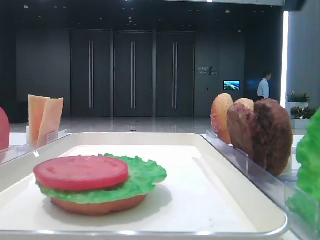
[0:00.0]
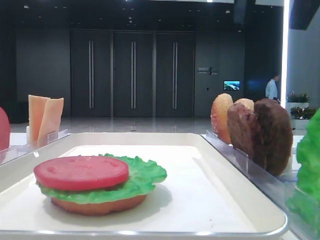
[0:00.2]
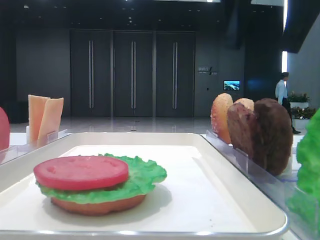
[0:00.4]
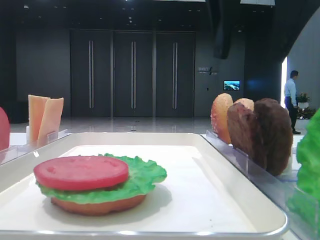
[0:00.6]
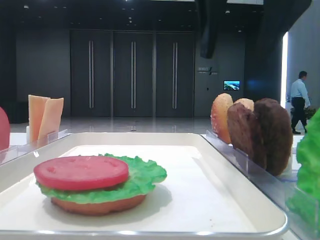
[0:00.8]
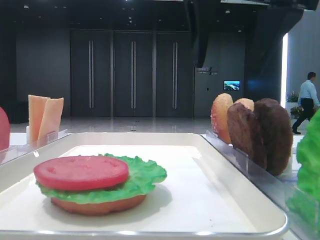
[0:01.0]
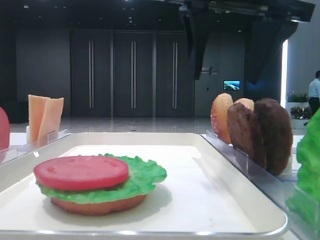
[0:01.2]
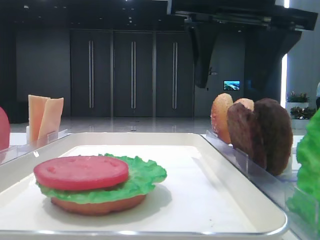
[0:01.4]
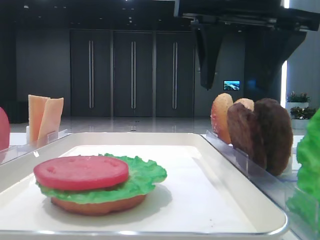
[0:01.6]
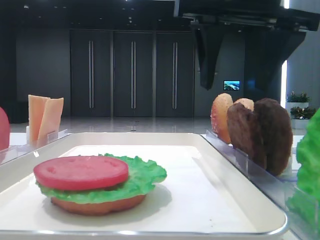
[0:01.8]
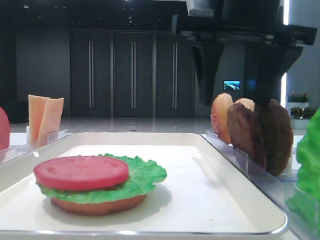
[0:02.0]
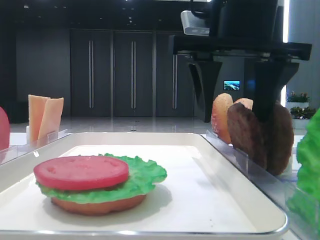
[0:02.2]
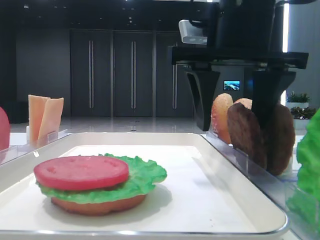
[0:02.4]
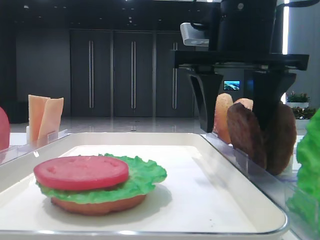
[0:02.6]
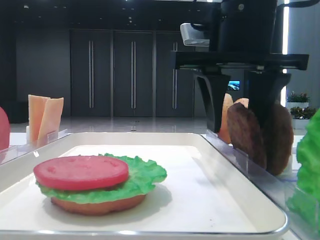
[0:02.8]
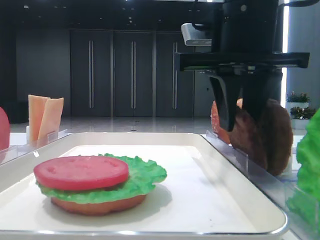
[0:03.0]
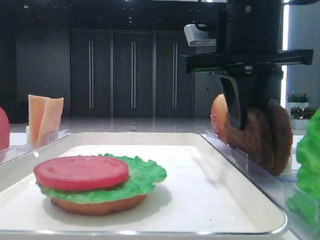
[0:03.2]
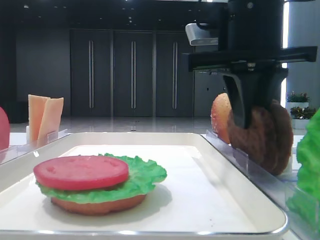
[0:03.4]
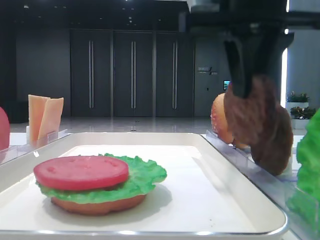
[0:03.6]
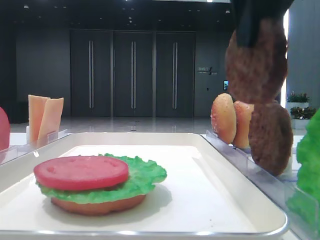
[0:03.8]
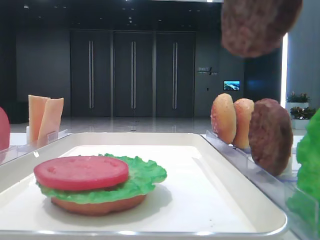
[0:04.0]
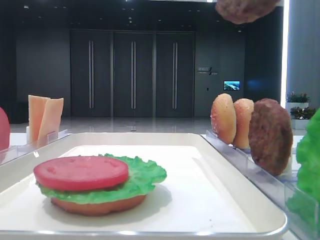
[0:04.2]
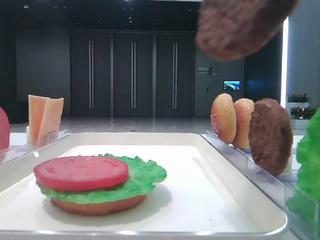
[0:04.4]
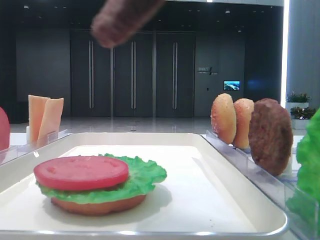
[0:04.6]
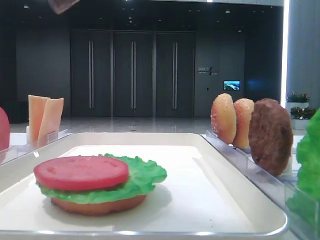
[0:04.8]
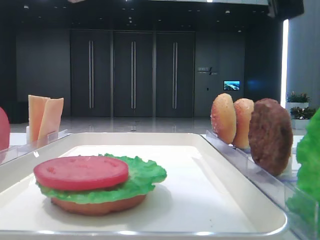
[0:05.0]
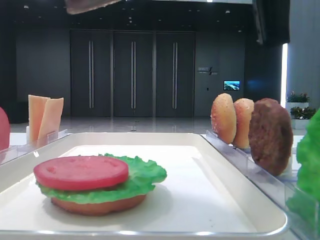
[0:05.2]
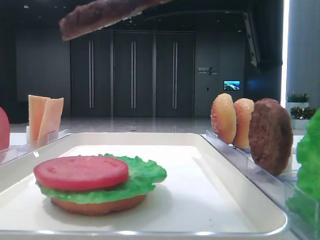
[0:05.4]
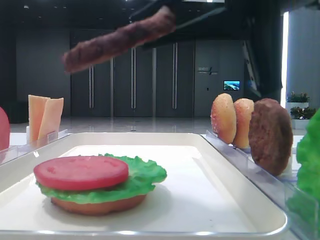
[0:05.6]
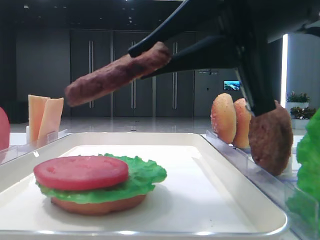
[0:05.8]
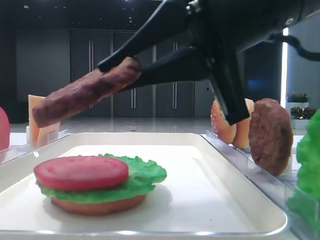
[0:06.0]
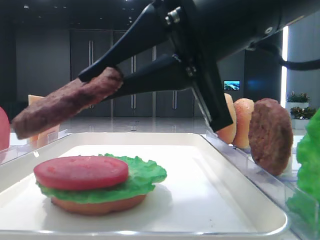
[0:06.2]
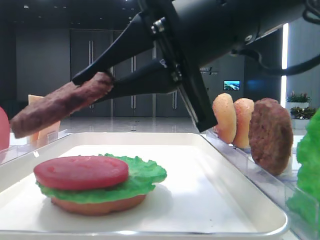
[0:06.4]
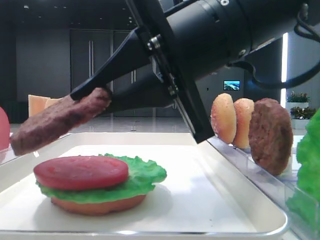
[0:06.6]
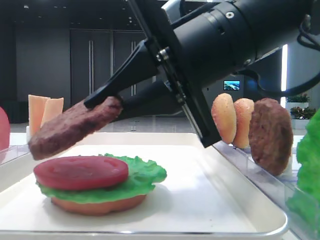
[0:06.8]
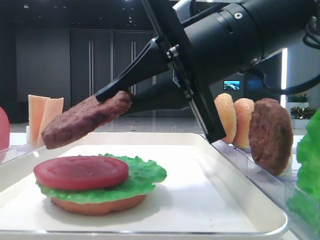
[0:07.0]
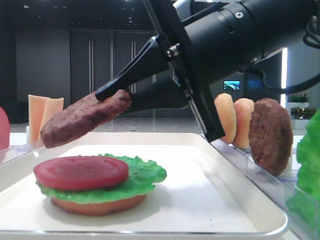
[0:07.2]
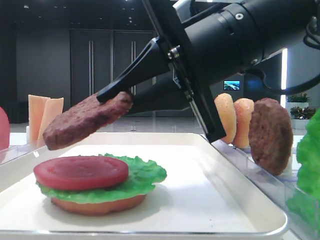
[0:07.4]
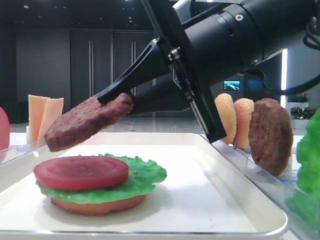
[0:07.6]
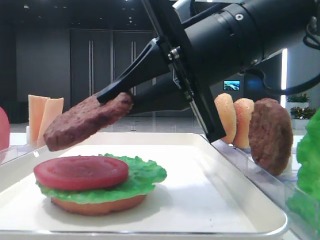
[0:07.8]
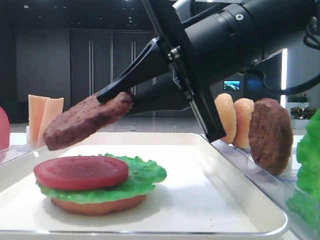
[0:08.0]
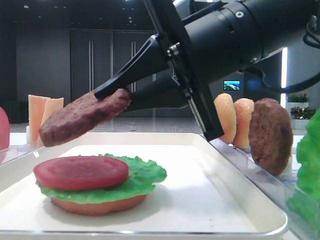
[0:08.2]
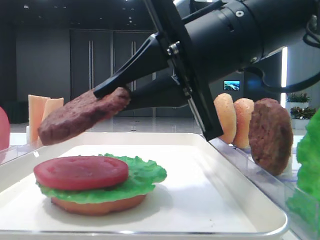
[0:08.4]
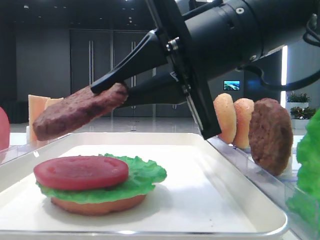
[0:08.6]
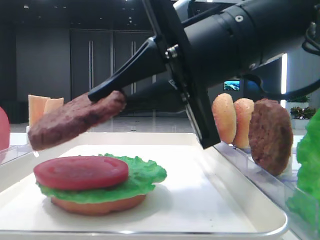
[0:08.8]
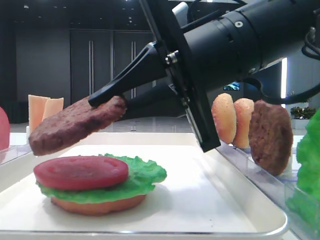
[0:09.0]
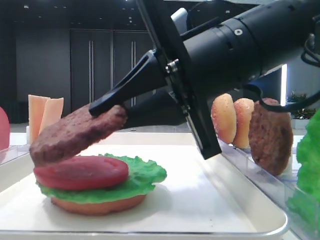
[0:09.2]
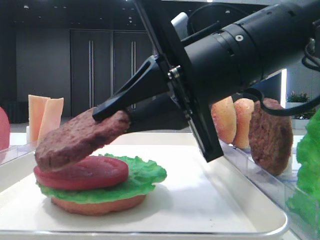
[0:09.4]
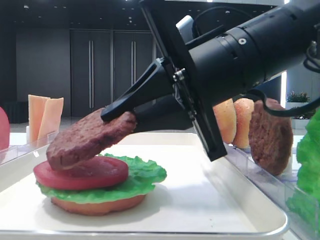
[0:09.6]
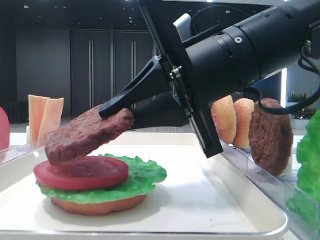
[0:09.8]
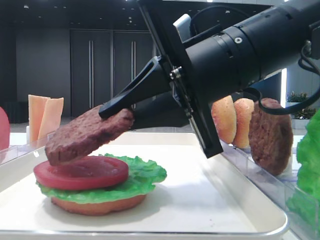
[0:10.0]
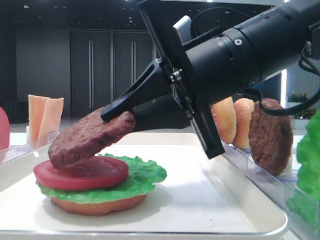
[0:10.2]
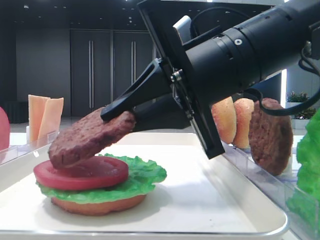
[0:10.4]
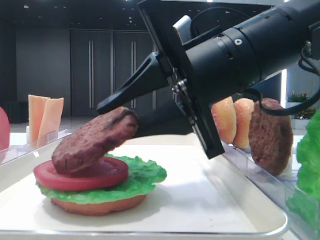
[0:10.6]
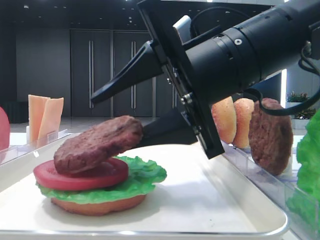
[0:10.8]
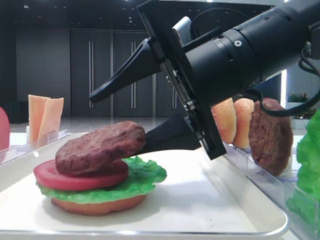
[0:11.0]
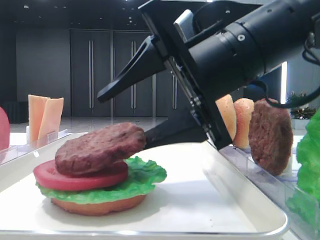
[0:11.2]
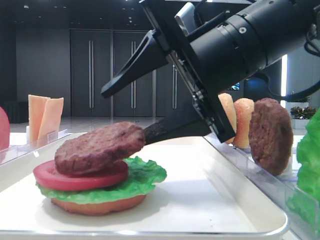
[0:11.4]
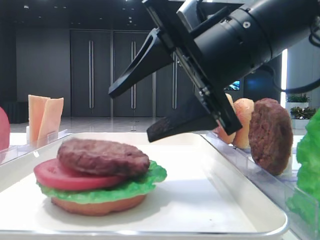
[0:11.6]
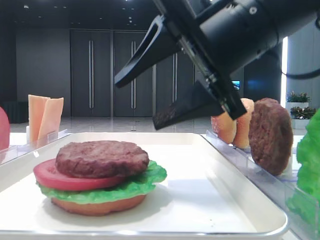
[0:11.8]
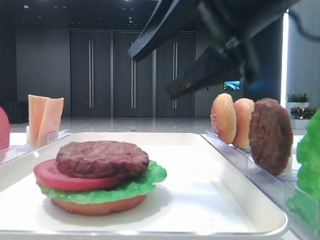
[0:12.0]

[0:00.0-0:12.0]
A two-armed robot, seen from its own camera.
Step, 0:00.0 to 0:02.8: Grab the patty with the right hand.
Step, 0:03.2 to 0:11.6: Place the patty on the tomato slice with the right hand.
0:00.0 to 0:01.6: The right gripper goes roughly 10 cm downward, forward and to the left.
0:01.6 to 0:03.0: The right gripper closes its fingers.
0:03.0 to 0:04.4: The right gripper heads backward and upward, covering roughly 20 cm.
0:04.4 to 0:06.0: The right gripper shifts approximately 15 cm downward and forward.
0:07.6 to 0:09.0: Both grippers stay about where they are.
0:10.4 to 0:12.0: The right gripper goes approximately 5 cm upward, and opens.

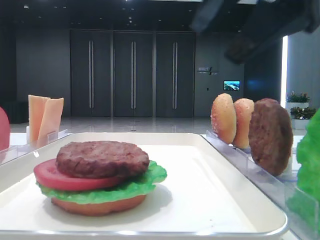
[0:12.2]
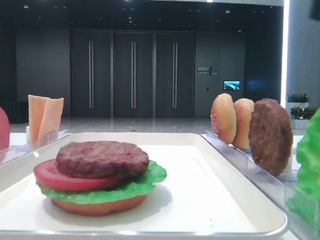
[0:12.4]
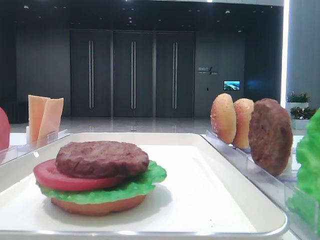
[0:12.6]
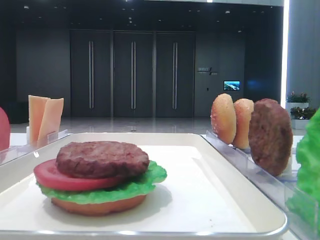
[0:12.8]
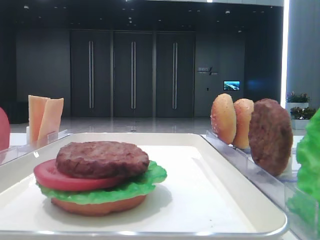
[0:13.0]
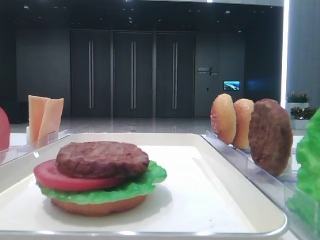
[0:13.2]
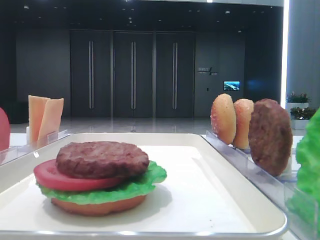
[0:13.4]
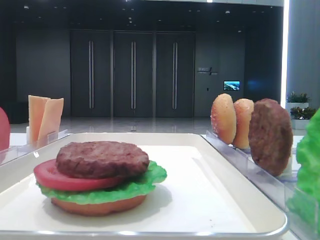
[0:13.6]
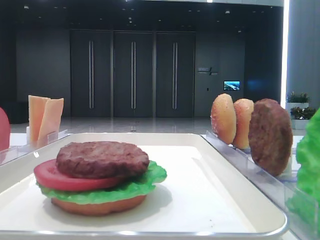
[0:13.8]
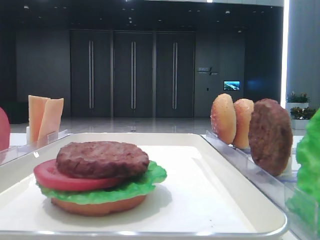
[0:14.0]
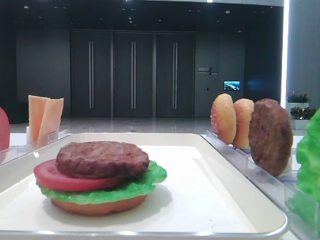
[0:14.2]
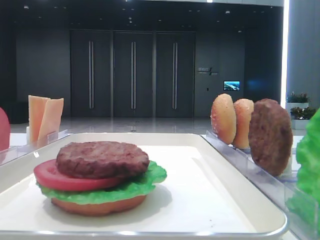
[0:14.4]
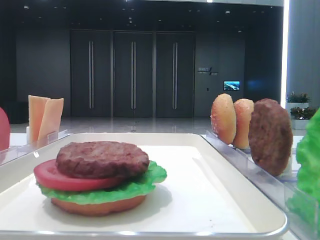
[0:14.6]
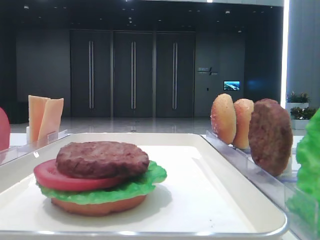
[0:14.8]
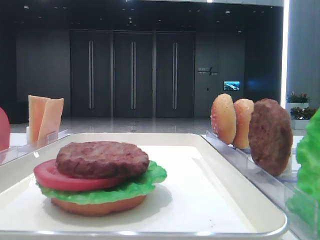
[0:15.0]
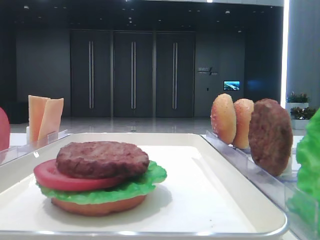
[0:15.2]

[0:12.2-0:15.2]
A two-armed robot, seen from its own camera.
0:12.2 to 0:13.8: The right gripper heads backward and to the right, covering about 30 cm.
0:13.8 to 0:15.2: The two grippers keep their place.

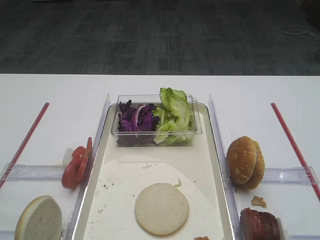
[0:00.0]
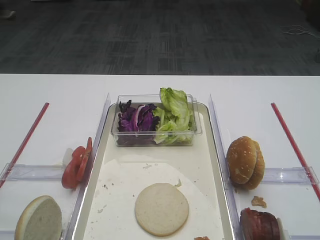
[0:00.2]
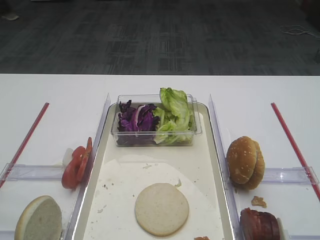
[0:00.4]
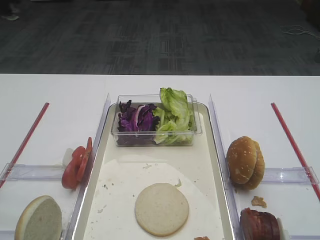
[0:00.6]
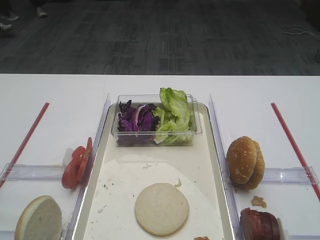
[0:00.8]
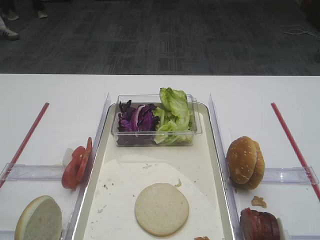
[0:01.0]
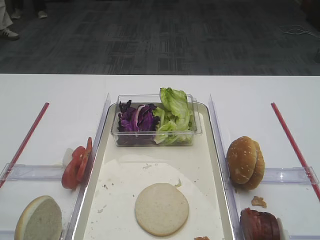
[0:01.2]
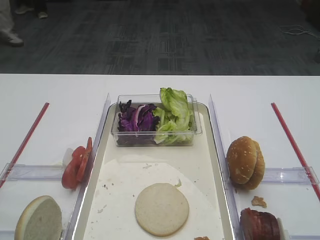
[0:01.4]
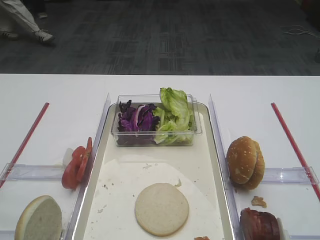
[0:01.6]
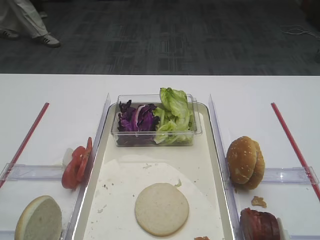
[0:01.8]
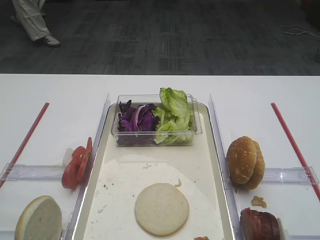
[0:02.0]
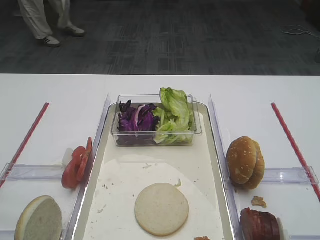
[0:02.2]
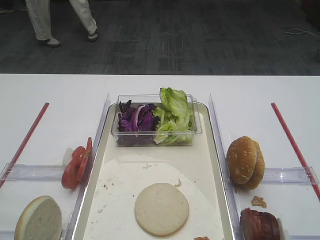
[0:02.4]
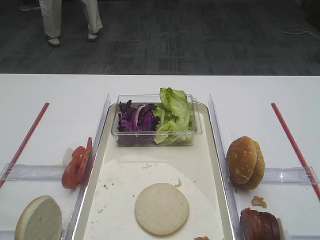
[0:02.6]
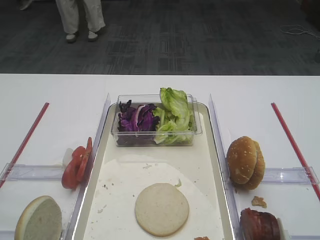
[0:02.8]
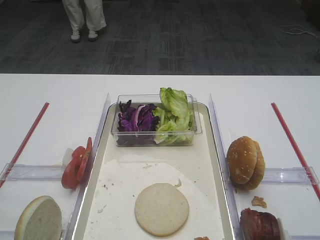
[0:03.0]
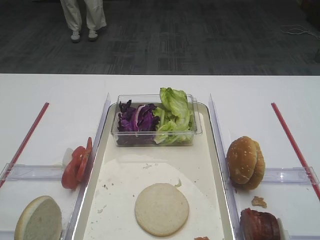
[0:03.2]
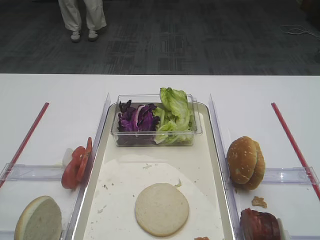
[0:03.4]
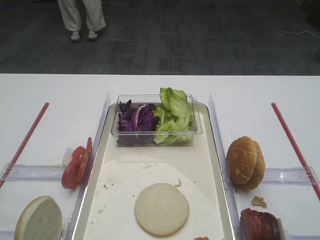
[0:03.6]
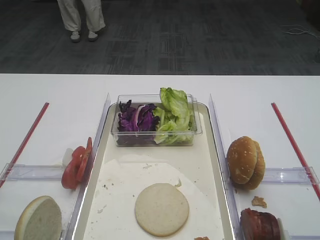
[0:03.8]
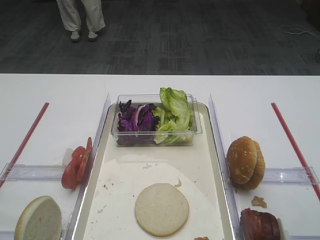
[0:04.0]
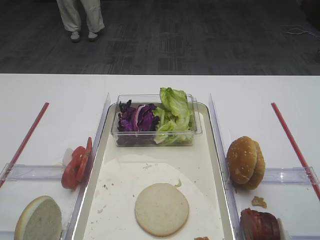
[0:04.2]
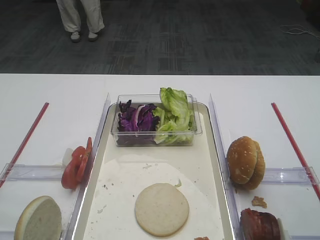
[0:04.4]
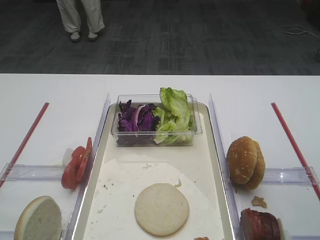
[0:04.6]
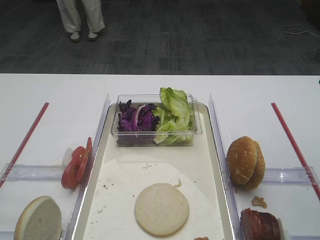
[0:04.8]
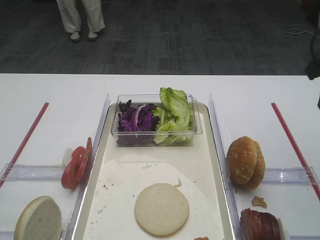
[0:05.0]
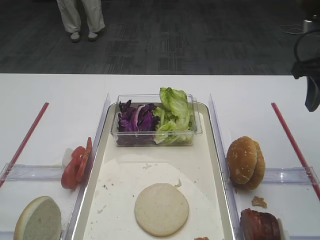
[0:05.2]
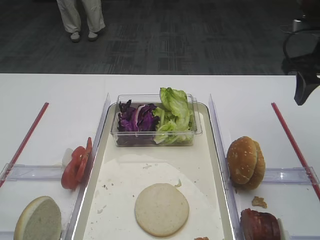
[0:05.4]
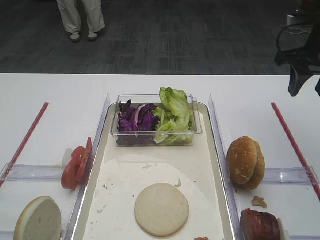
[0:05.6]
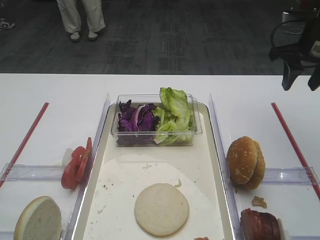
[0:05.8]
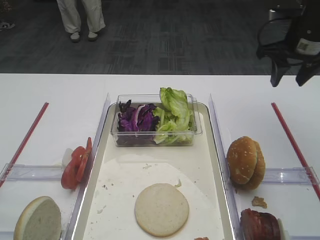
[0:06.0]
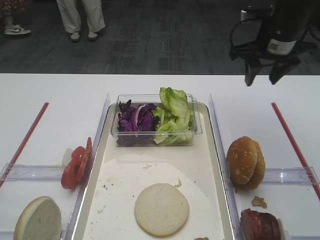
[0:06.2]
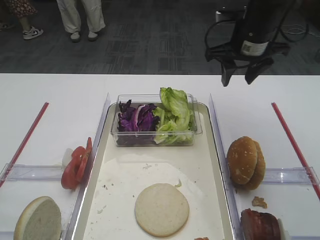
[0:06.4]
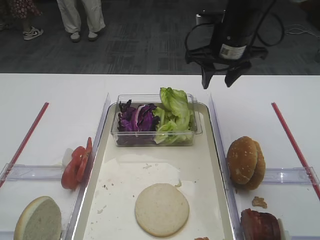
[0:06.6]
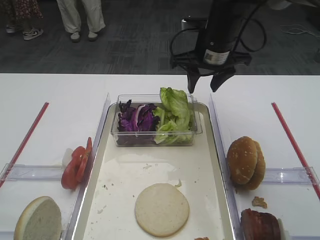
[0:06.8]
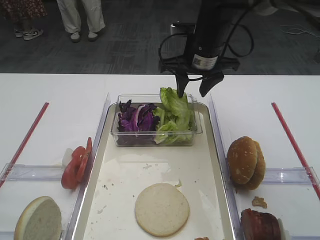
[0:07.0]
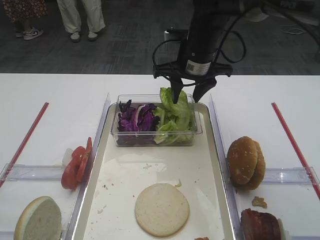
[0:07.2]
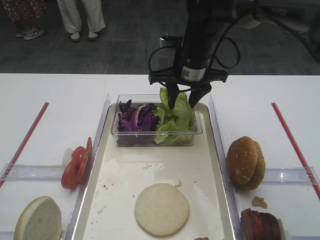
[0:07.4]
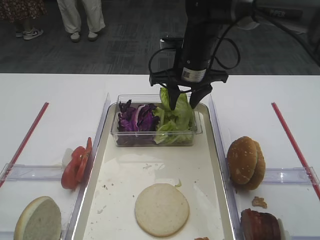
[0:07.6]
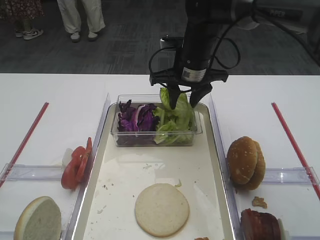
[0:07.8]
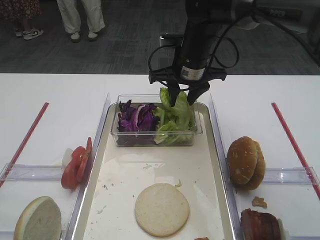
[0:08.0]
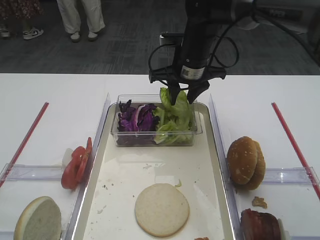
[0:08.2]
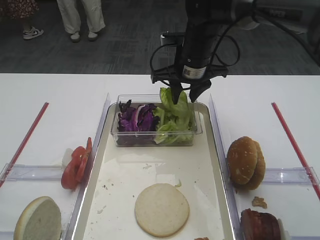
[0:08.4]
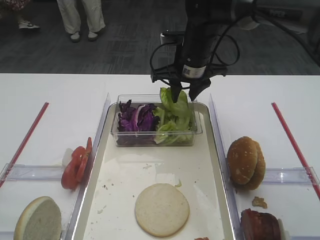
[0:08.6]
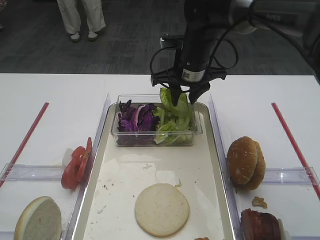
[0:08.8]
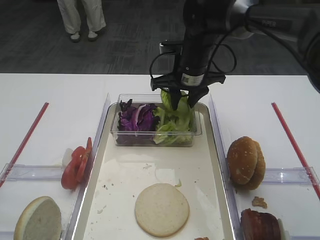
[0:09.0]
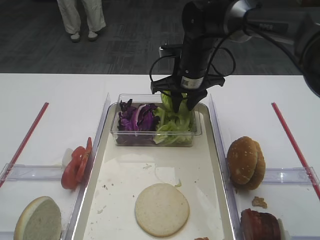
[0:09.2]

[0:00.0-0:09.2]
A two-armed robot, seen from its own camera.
0:04.6 to 0:06.2: The right gripper goes approximately 20 cm forward.
0:06.2 to 0:07.6: The right gripper goes approximately 15 cm to the left.
0:07.6 to 0:09.2: The grippers stay close to where they were, moving slightly.
